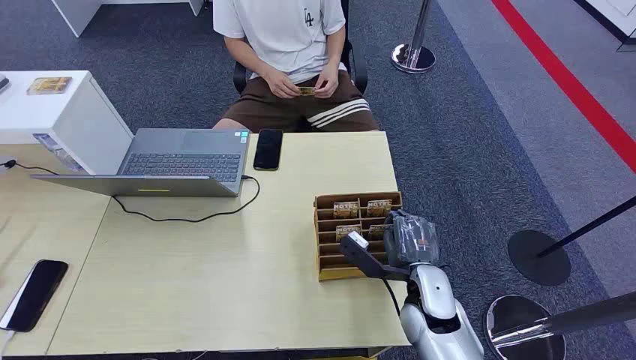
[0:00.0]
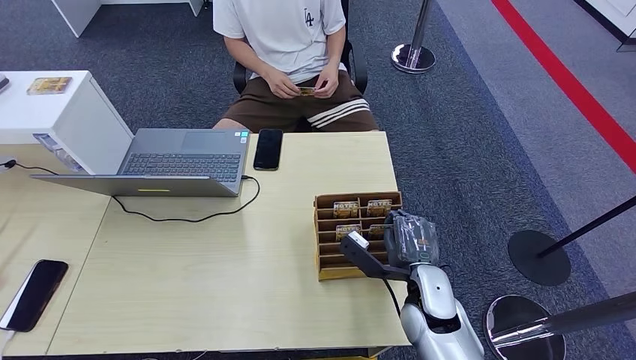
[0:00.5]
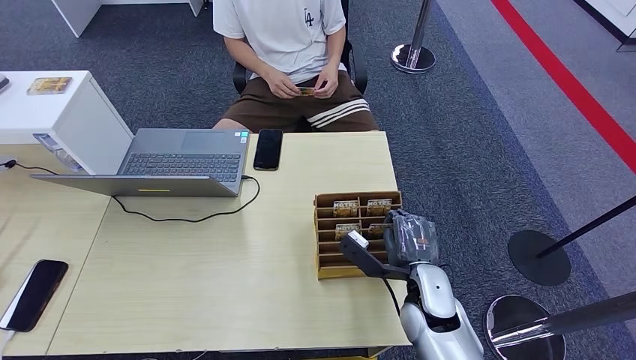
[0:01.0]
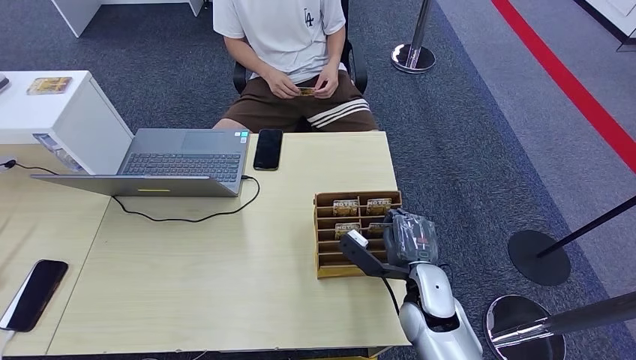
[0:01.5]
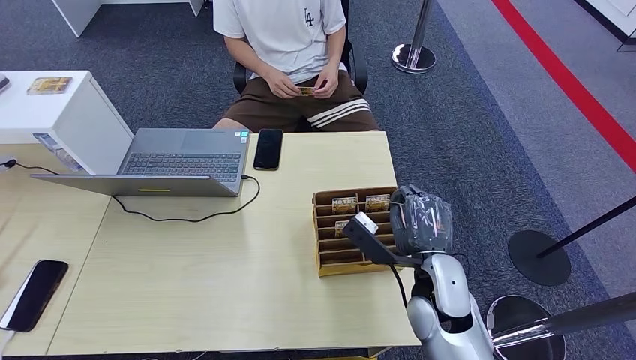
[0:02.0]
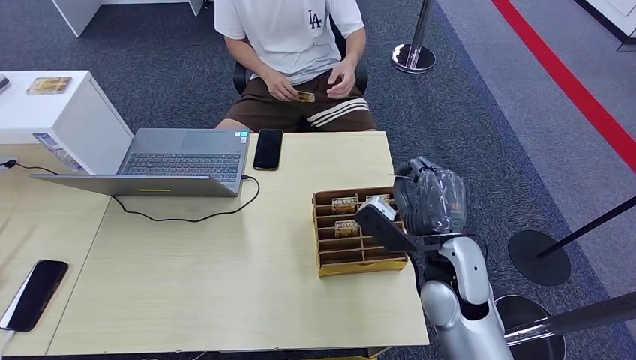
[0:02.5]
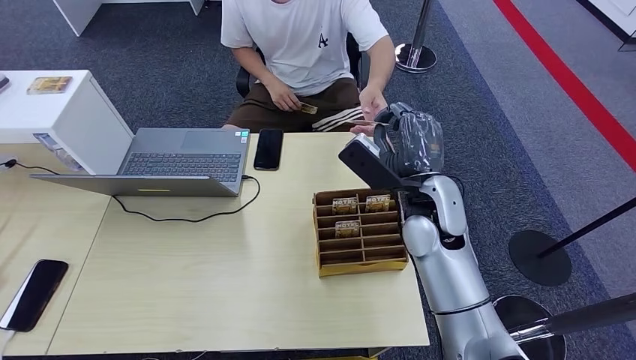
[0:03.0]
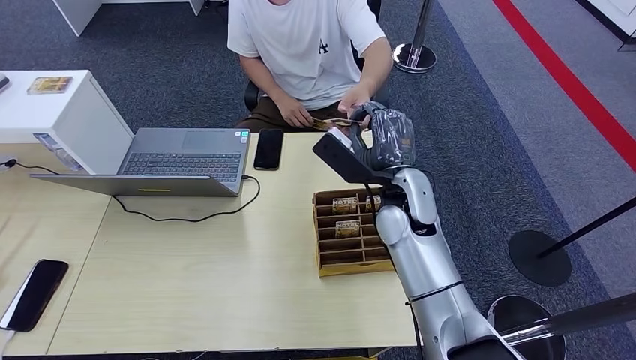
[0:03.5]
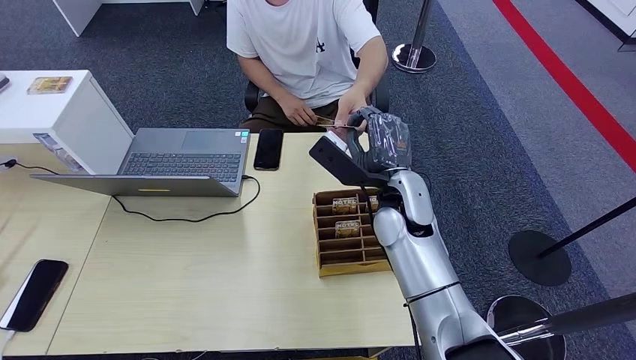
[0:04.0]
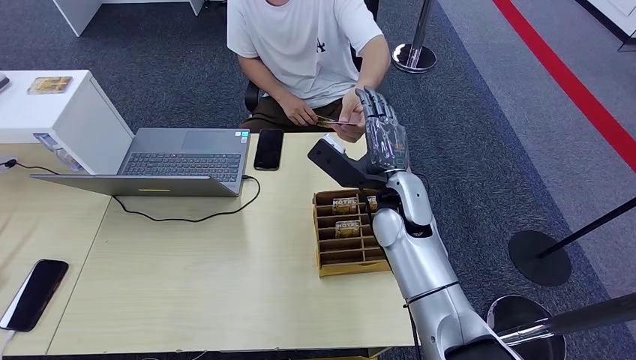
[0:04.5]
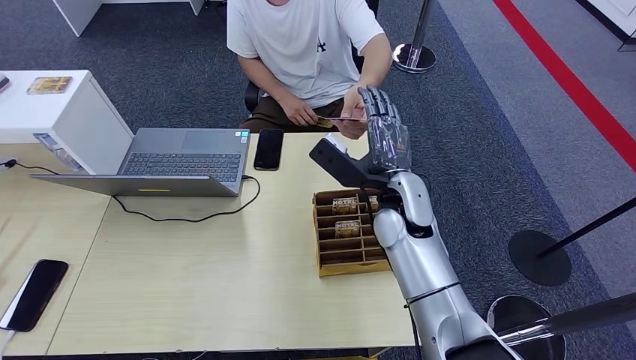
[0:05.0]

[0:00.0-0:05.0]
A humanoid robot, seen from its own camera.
Step, 0:00.0 to 0:02.0: Pick up the room card from the card holder.
Step, 0:02.5 to 0:05.0: Hand the room card to the target.
0:02.5 to 0:05.0: The right hand travels forward by about 5 cm.
